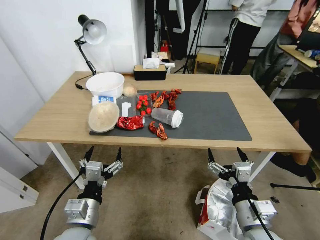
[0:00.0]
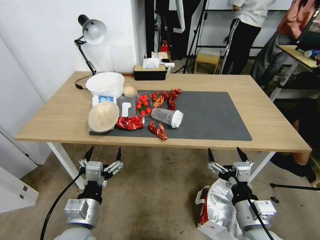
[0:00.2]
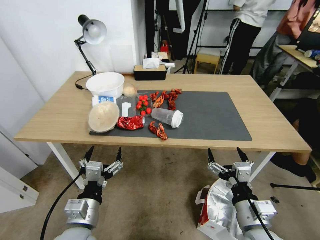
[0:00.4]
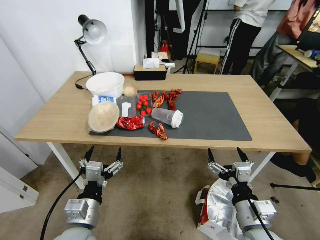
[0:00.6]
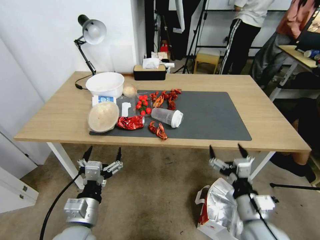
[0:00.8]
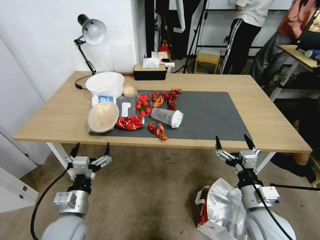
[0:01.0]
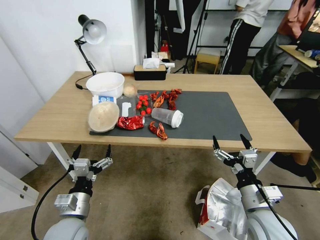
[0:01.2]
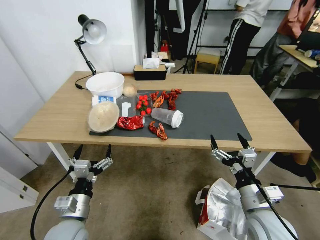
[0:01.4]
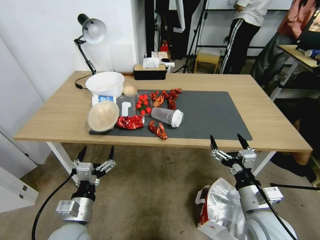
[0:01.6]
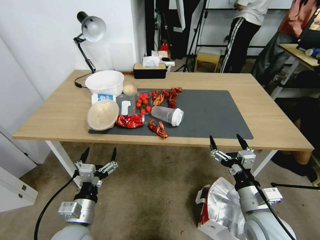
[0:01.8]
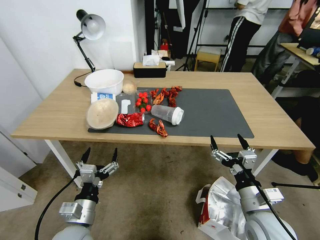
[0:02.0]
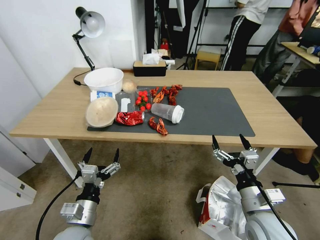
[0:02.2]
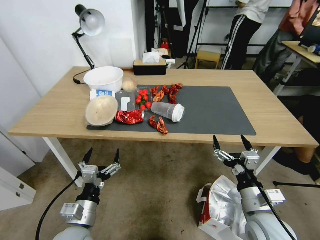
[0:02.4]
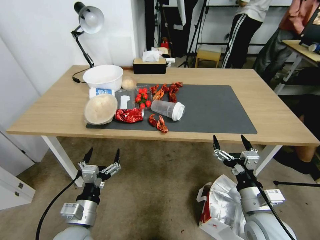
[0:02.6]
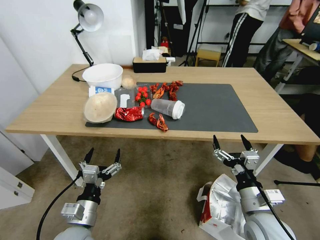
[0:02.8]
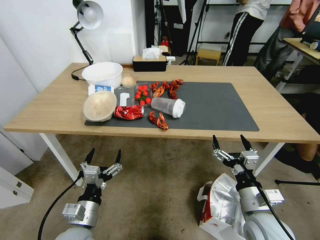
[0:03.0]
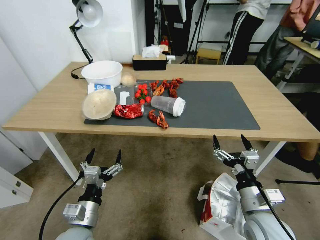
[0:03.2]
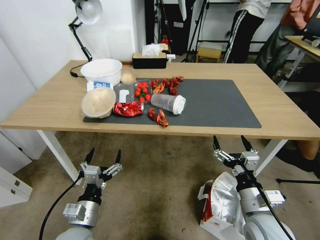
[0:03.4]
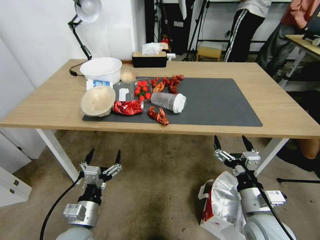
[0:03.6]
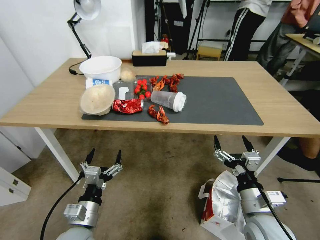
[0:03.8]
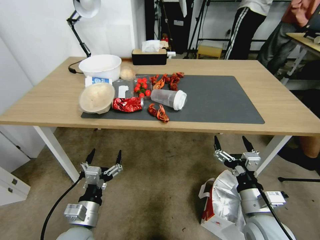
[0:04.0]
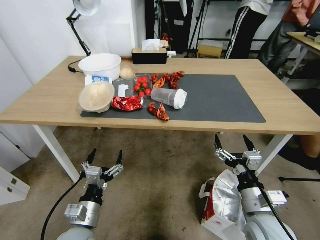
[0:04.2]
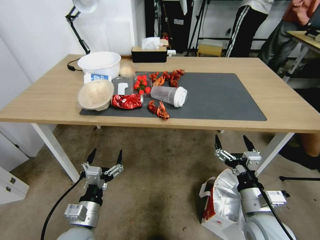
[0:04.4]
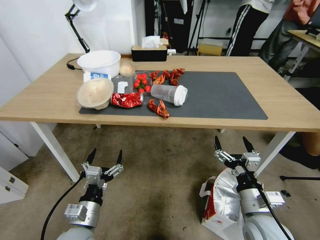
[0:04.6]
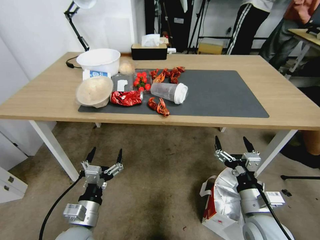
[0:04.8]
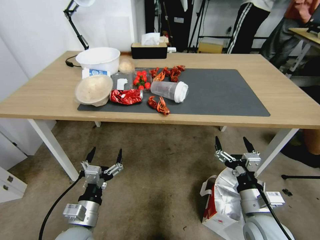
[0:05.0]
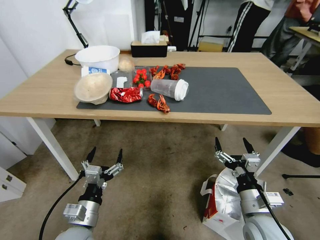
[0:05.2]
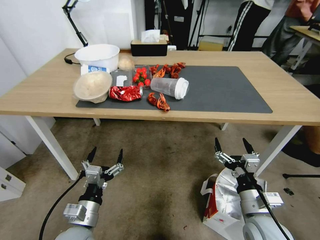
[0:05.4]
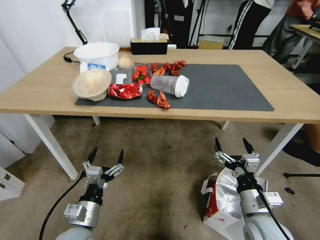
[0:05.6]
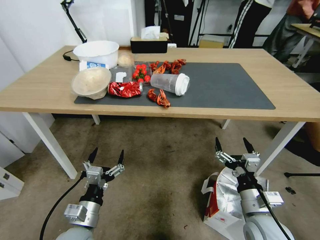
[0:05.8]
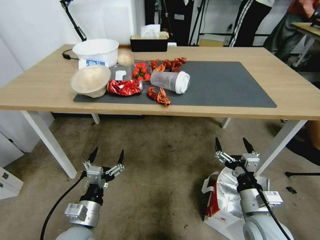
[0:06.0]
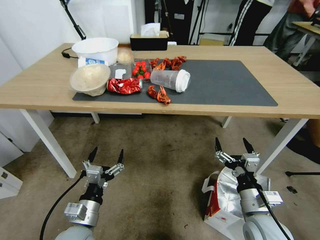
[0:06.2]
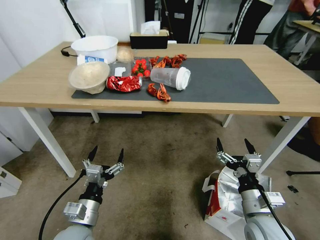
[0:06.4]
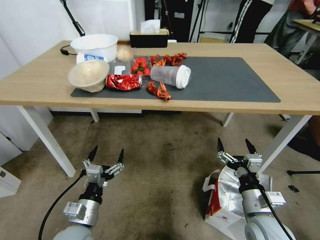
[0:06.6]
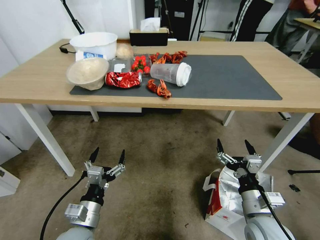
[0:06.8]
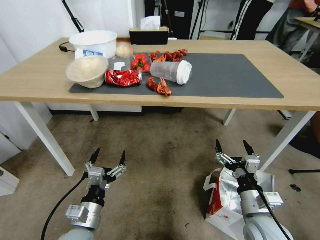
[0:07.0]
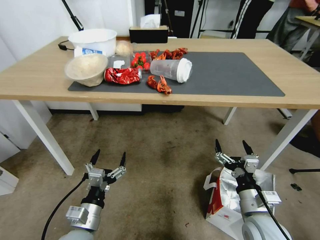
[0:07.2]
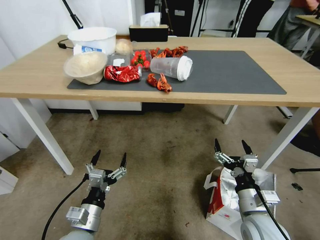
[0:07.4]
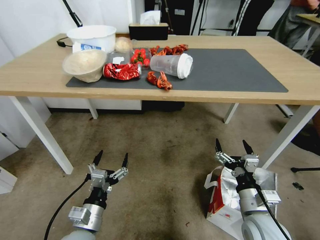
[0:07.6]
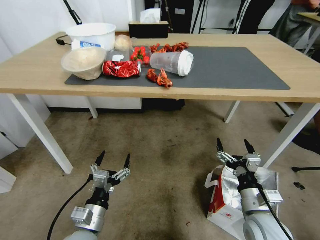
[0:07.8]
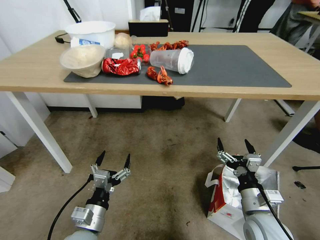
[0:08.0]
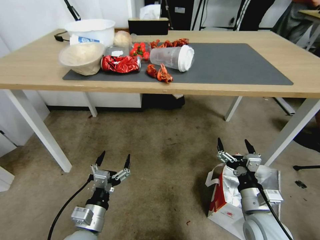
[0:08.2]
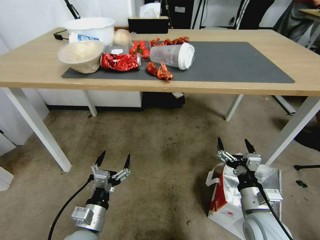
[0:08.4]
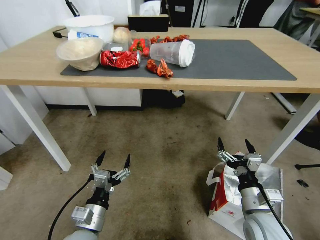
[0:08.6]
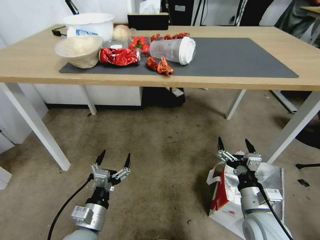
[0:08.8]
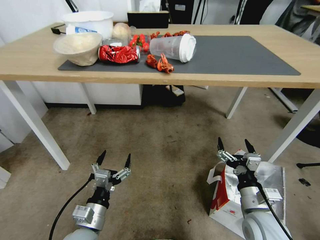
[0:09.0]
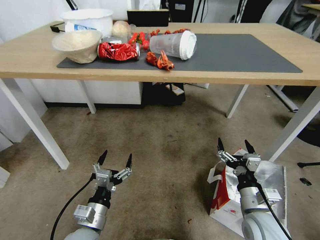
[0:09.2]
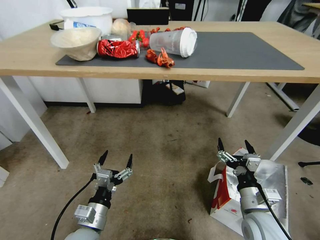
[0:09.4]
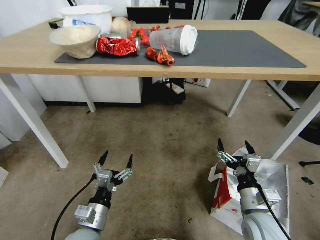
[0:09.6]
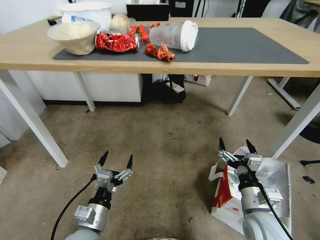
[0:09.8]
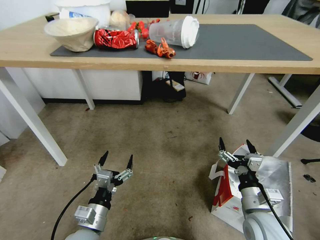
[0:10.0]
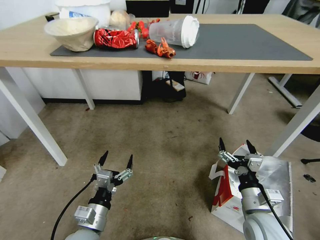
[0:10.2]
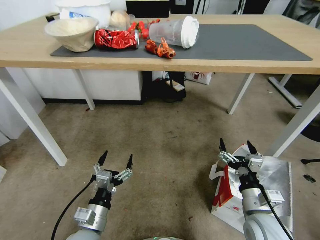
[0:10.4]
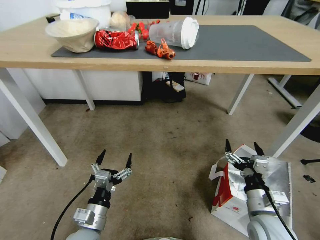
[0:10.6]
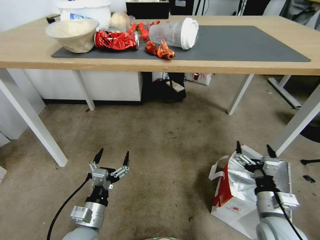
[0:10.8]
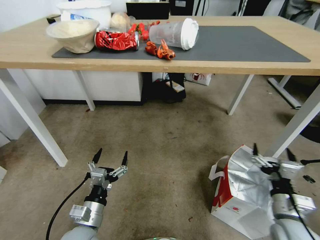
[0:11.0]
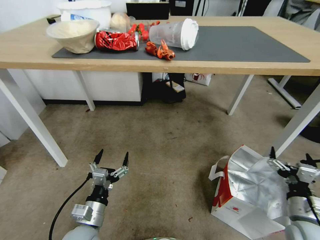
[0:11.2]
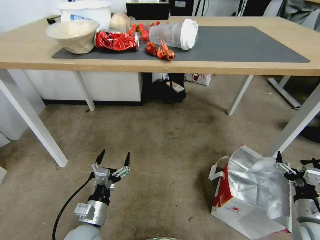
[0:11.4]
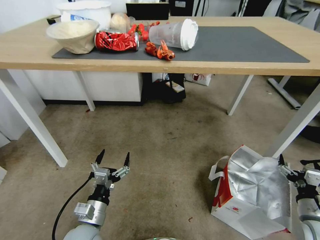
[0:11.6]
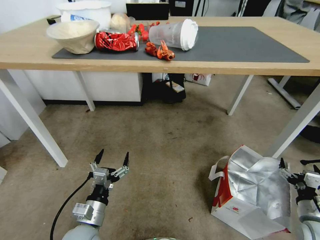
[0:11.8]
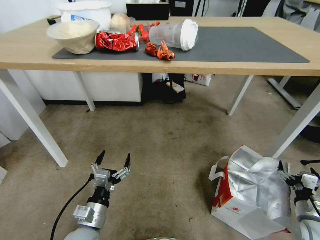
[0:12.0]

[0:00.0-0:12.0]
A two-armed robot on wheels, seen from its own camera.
Task of the whole recording: Pick up the food delivery bag from the floor and place it on the table.
0:10.4 to 0:12.0: The right gripper shifts about 20 cm to the right and downward.

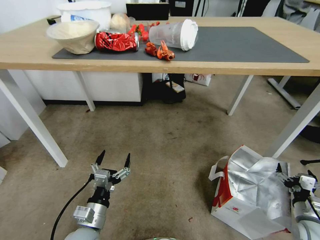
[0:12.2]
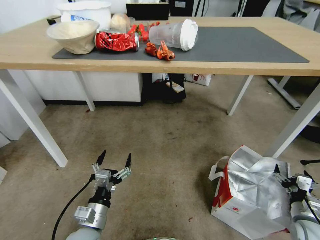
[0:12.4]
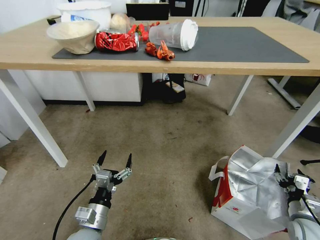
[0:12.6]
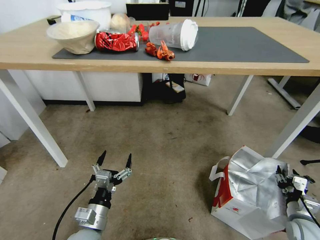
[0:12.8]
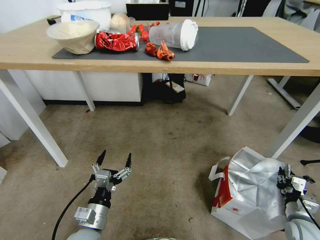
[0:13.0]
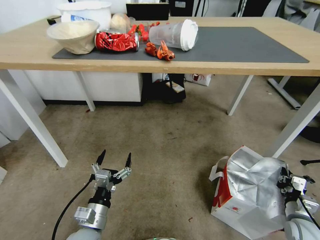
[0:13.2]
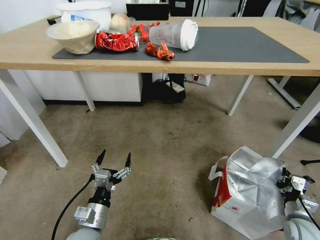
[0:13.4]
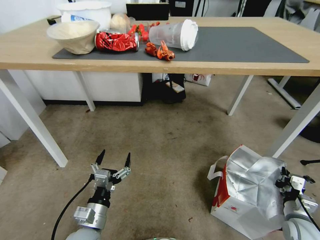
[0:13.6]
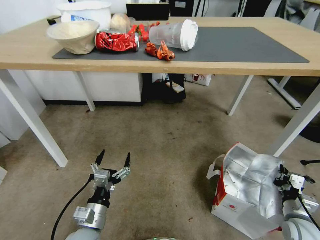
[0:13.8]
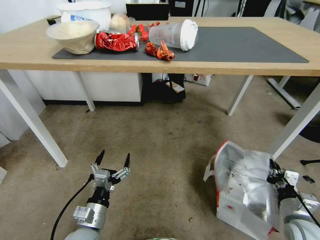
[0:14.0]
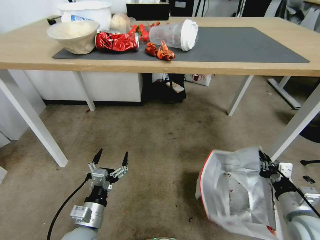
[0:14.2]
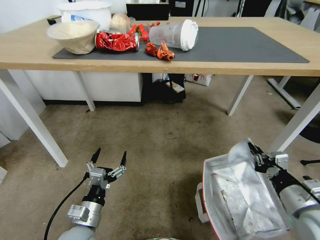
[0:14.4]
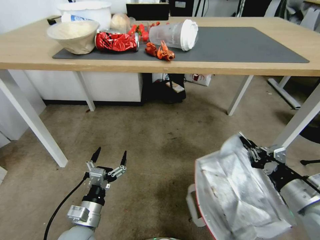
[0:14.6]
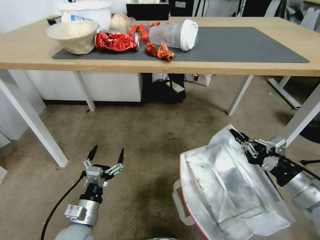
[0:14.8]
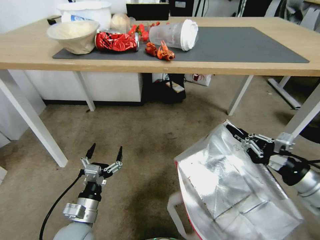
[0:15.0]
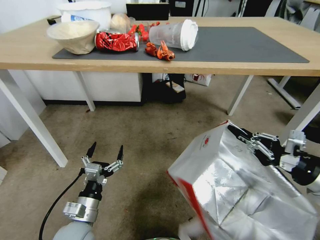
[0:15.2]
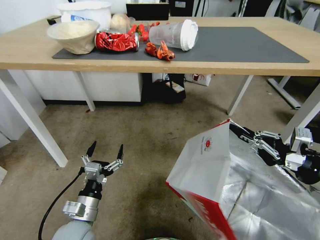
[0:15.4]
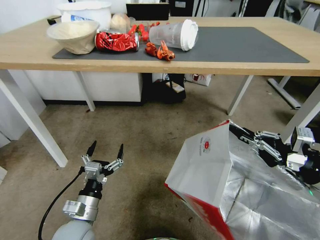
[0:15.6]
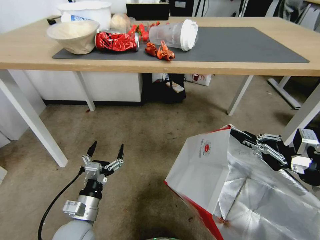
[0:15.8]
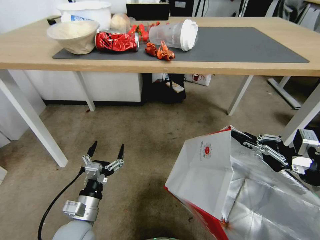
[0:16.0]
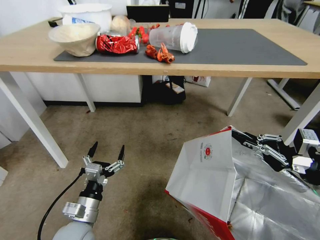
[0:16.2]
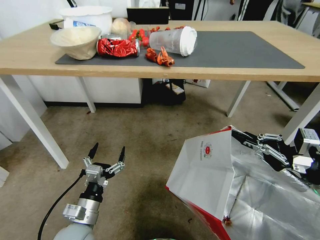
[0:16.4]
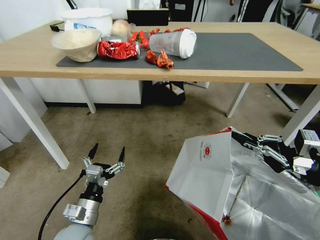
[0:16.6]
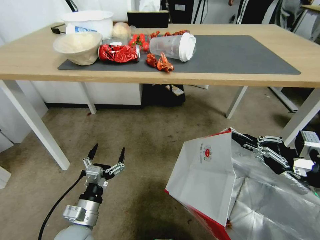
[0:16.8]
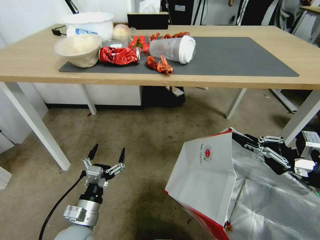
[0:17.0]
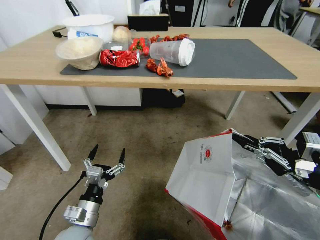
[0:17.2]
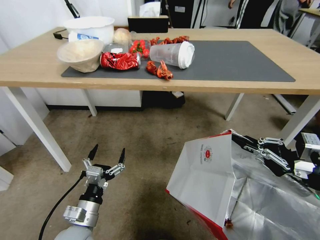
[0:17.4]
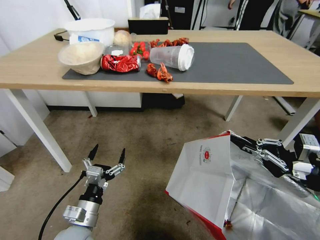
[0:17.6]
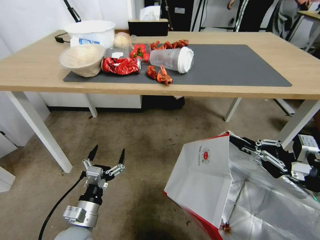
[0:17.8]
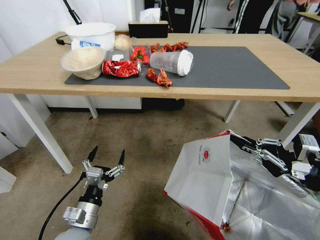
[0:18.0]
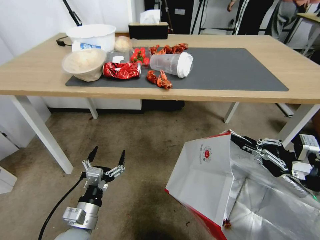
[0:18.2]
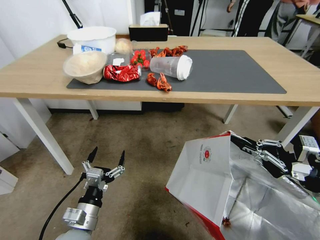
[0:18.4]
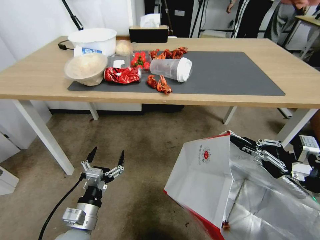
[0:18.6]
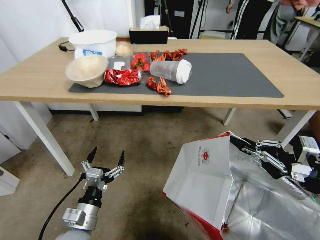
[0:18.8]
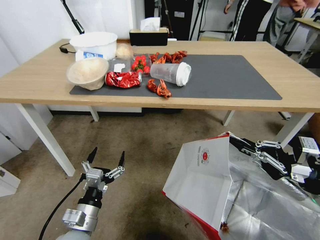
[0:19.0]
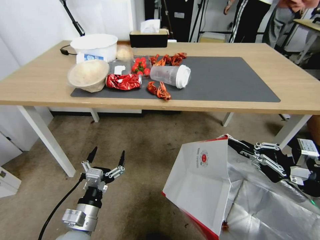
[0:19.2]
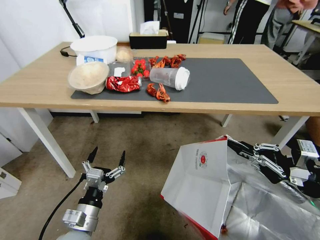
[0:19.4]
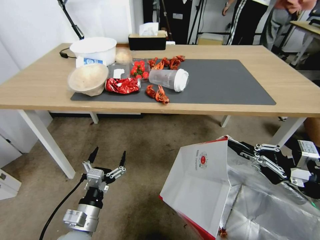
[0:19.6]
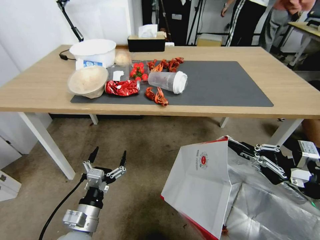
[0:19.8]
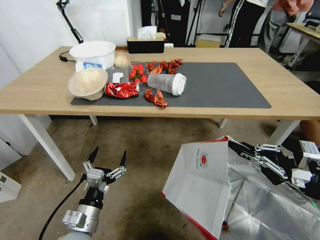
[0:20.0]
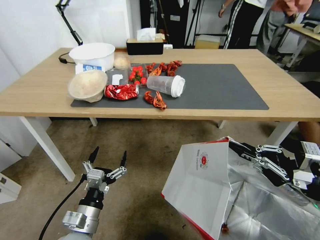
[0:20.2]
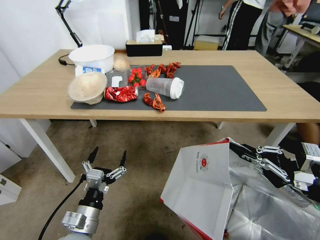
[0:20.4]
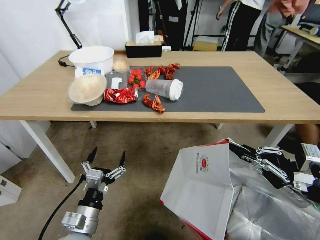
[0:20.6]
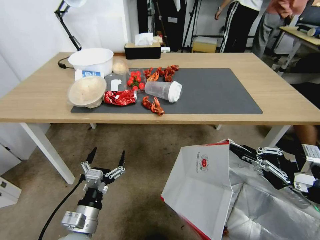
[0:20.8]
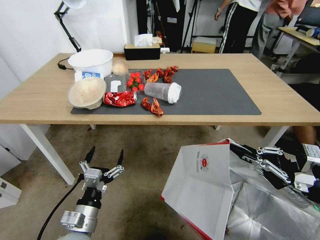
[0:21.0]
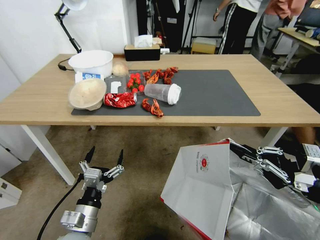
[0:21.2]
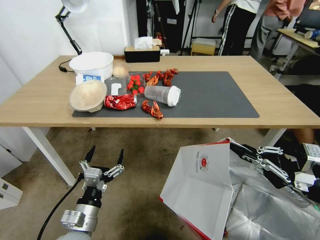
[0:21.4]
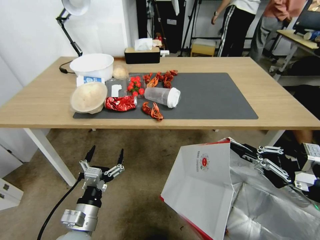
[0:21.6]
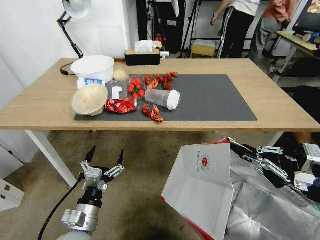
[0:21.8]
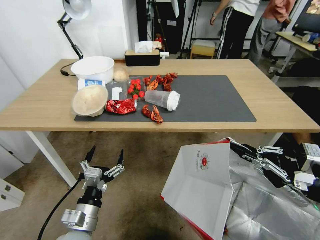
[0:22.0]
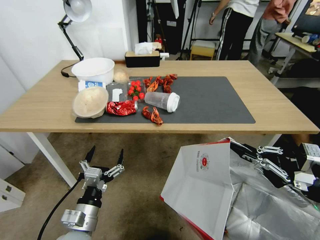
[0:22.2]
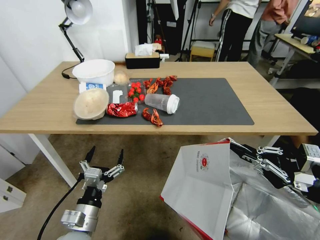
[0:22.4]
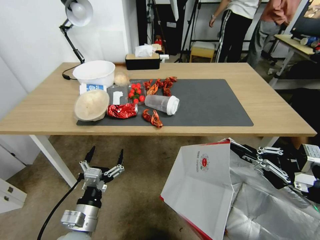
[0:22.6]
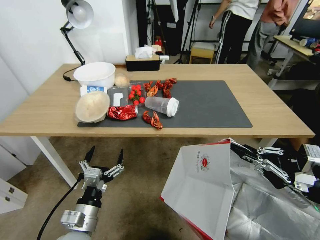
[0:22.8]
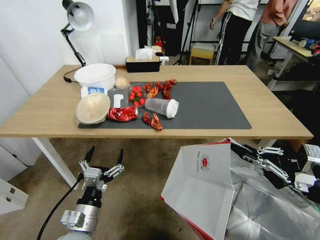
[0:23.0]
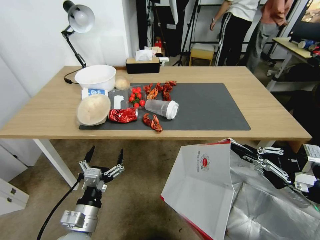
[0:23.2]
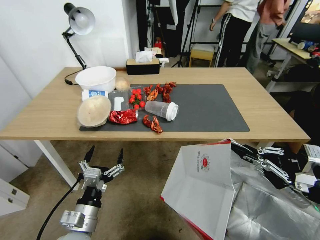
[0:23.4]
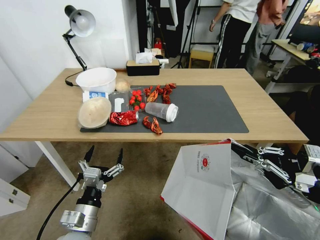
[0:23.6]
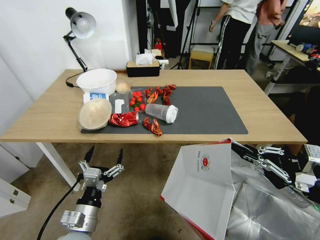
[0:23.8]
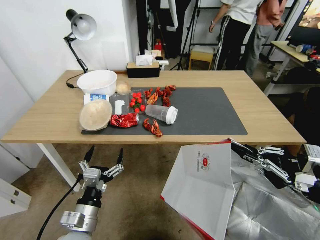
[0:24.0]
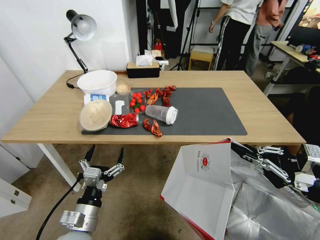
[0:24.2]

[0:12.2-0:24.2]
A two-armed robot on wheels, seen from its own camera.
Task of the whole recording: Pick up the food delivery bag from the floor and place it on the table.
0:12.2 to 0:13.8: The right gripper closes.
0:13.8 to 0:15.2: The right gripper moves upward, roughly 25 cm.
